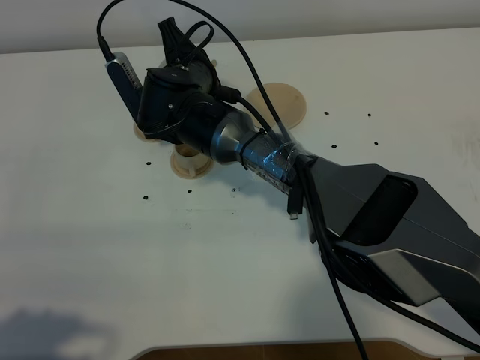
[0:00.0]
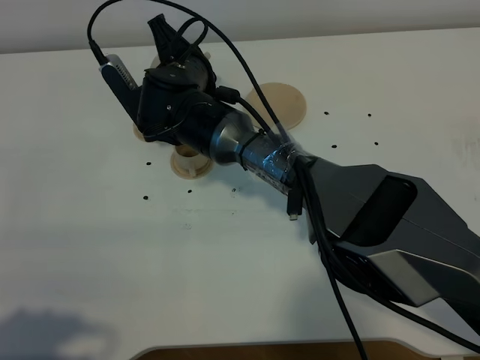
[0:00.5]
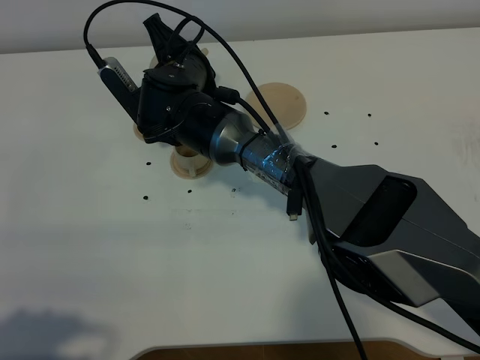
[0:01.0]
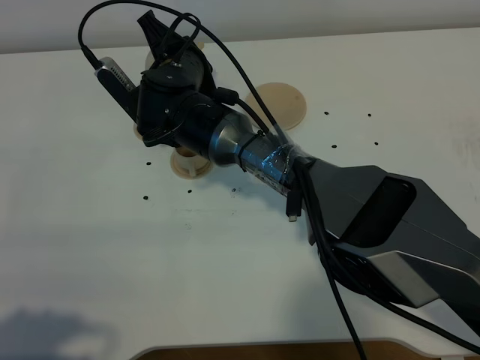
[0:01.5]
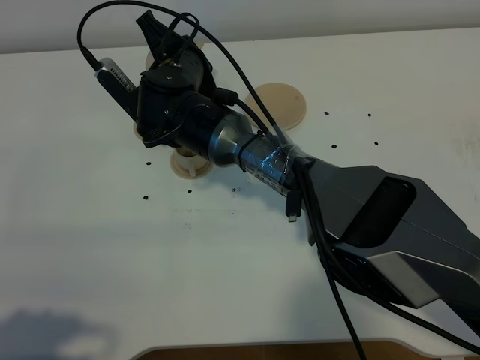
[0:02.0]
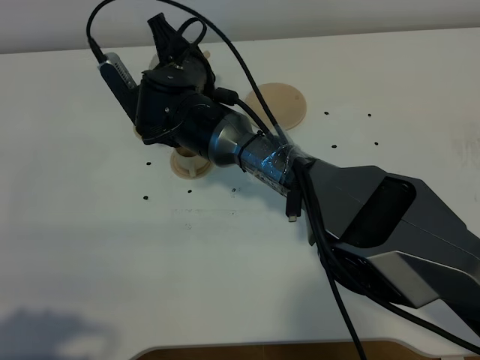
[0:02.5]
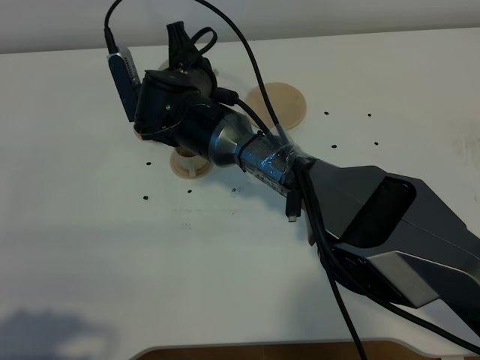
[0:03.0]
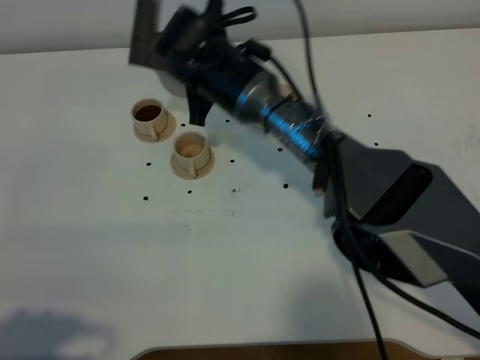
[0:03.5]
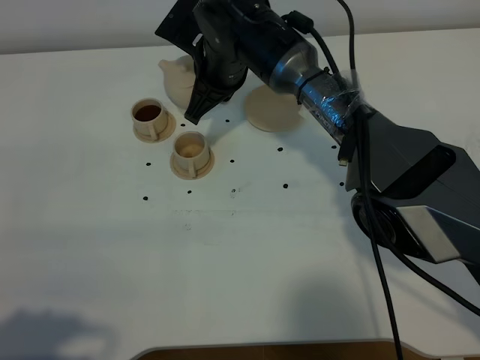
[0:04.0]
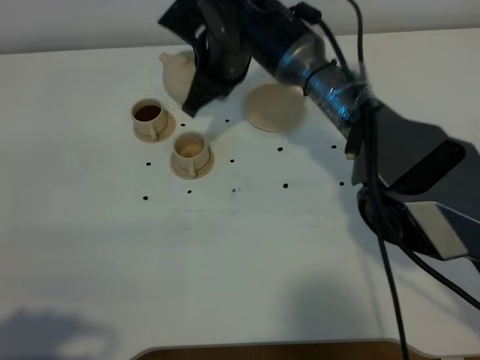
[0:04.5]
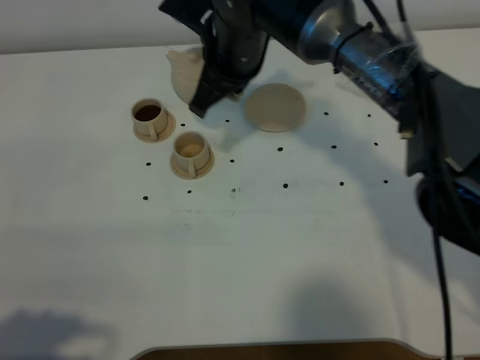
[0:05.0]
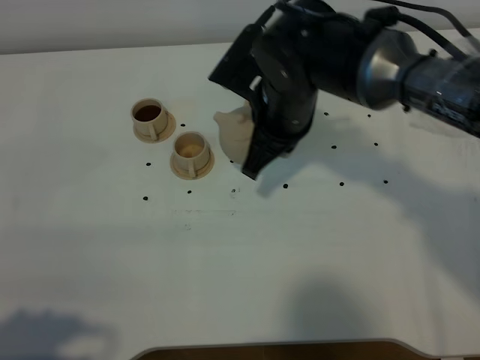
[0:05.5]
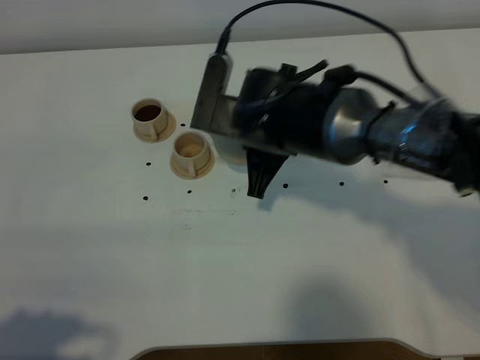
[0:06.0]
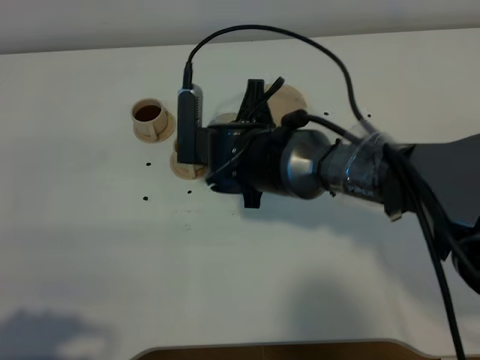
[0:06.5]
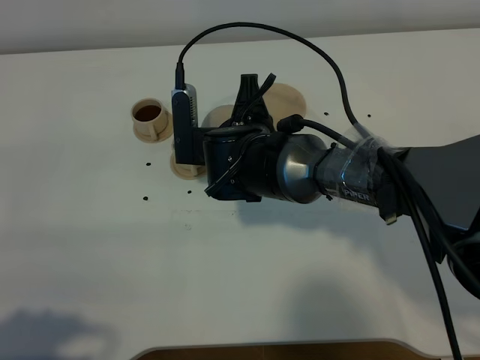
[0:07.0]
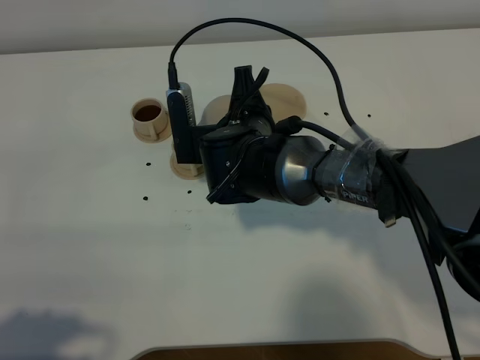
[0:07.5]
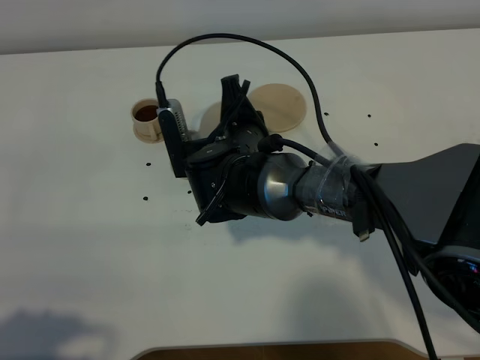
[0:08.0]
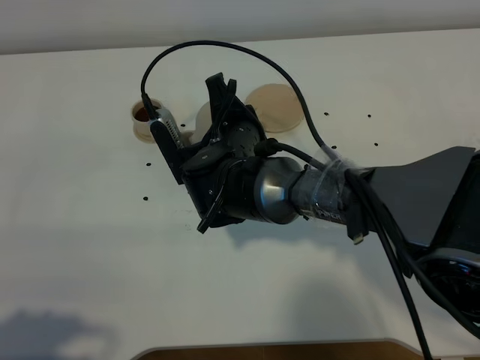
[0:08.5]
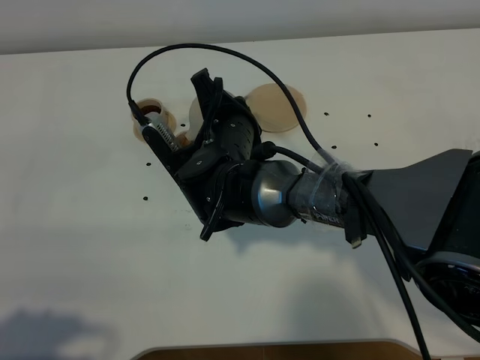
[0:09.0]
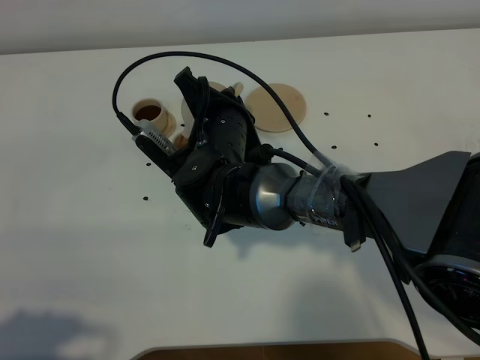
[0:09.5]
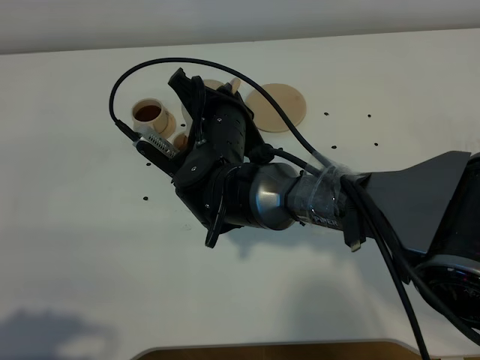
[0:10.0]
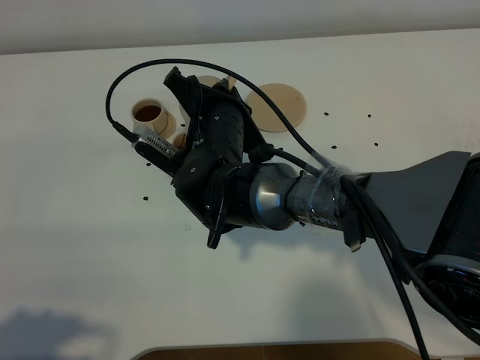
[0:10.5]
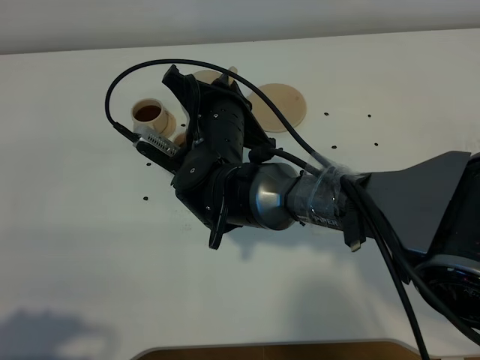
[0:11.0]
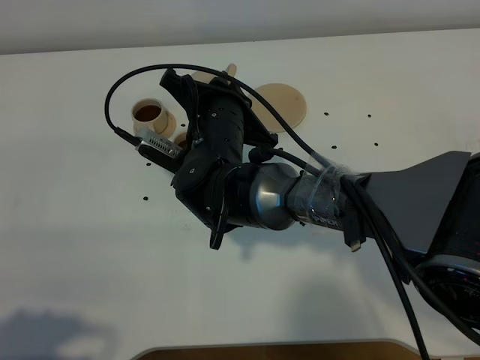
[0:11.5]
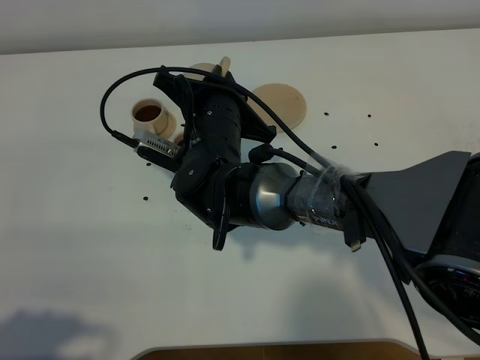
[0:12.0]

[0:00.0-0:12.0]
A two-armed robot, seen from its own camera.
Task of the whole recording: grasp the brown teapot and pour the tea into the two brown teacups one by one, put the brown teapot back in its original place.
0:00.0 to 0:02.0: There are only small adjustments of the grippers.
0:02.0 to 0:04.0: The right gripper moves to the right, approximately 5 cm.
0:04.0 to 0:06.0: The right gripper goes roughly 10 cm backward.
0:06.0 to 0:08.0: The right gripper ends up about 5 cm from where it was.
0:10.0 to 0:12.0: There are only small adjustments of the grippers.

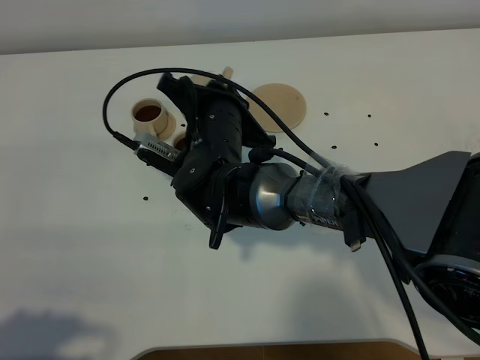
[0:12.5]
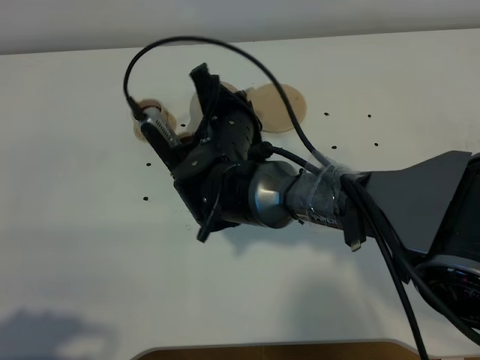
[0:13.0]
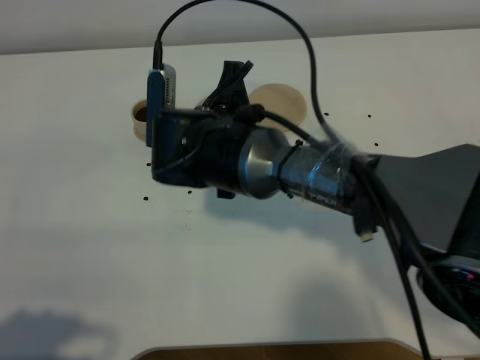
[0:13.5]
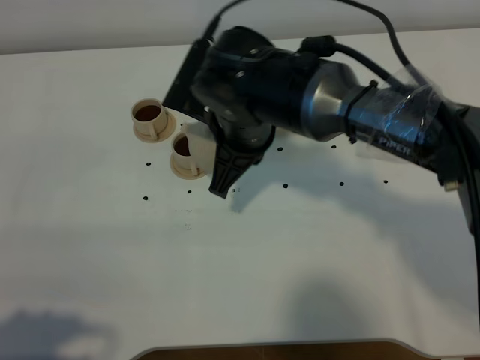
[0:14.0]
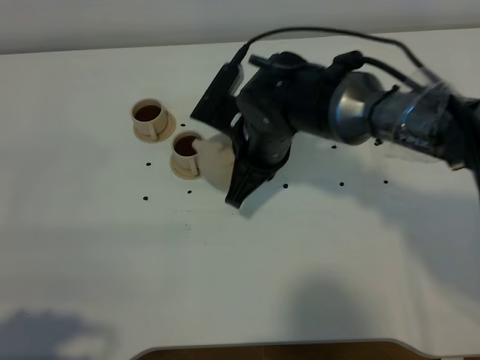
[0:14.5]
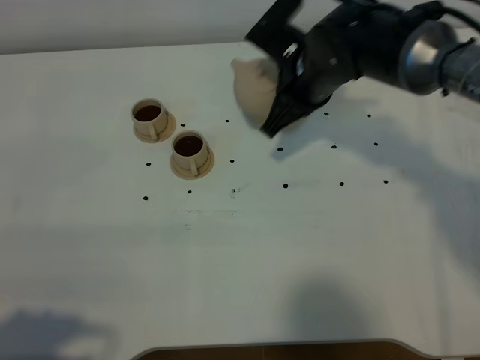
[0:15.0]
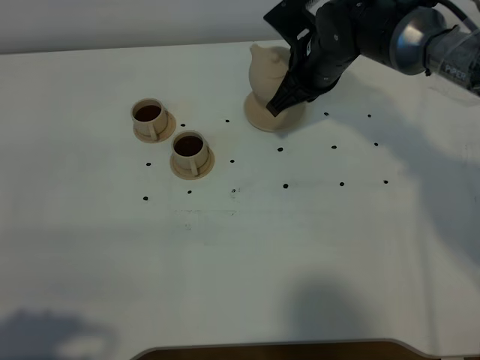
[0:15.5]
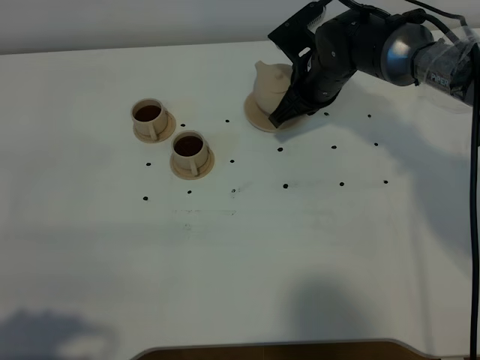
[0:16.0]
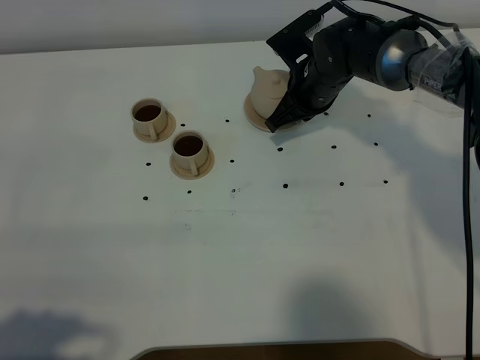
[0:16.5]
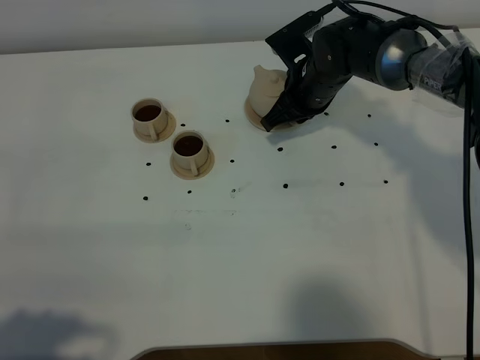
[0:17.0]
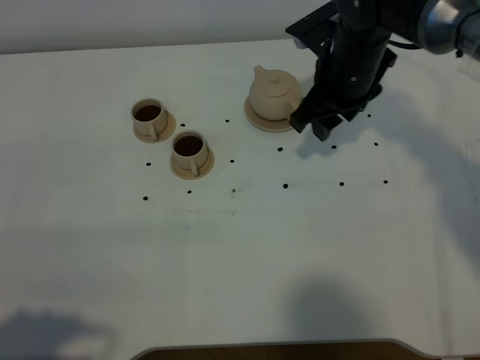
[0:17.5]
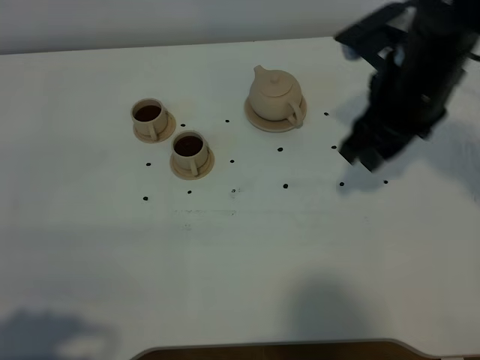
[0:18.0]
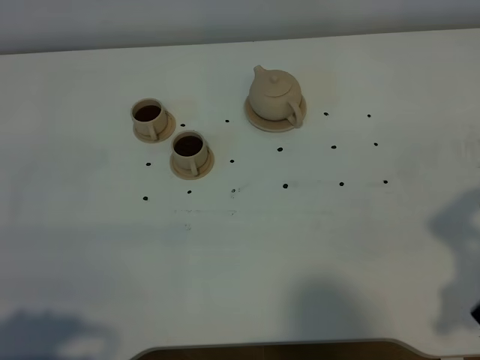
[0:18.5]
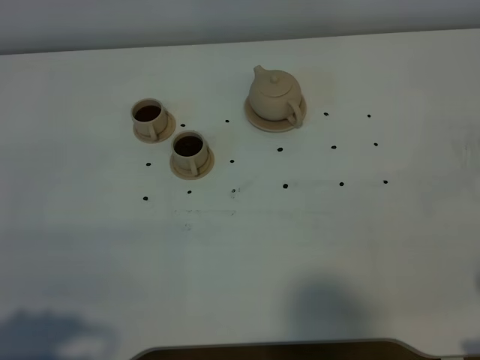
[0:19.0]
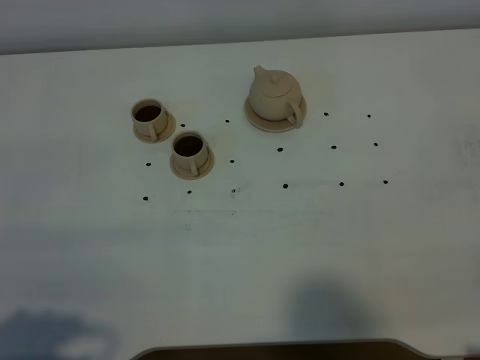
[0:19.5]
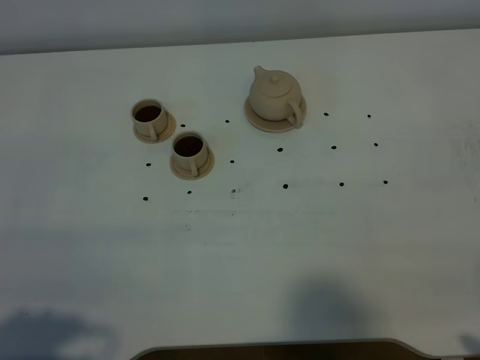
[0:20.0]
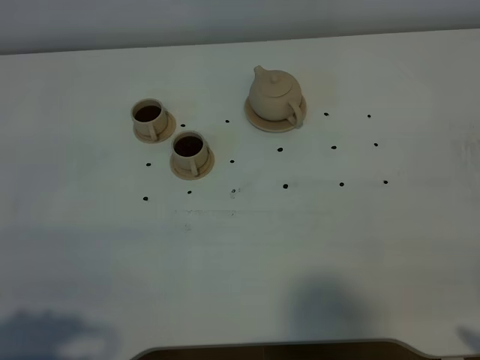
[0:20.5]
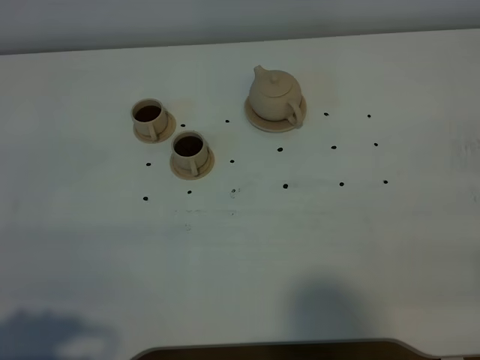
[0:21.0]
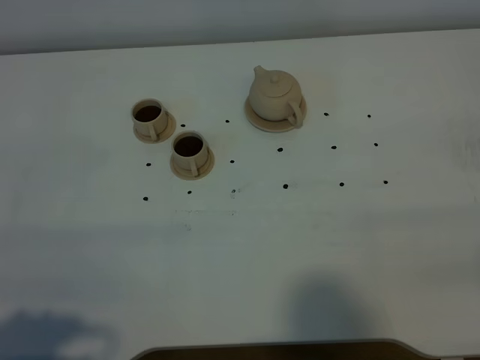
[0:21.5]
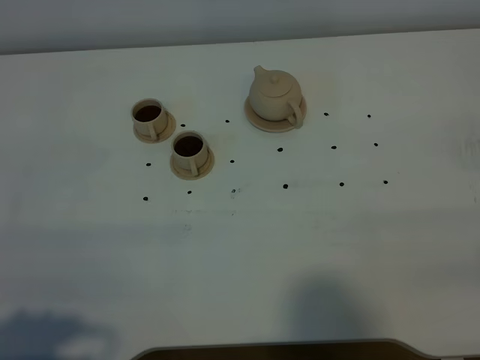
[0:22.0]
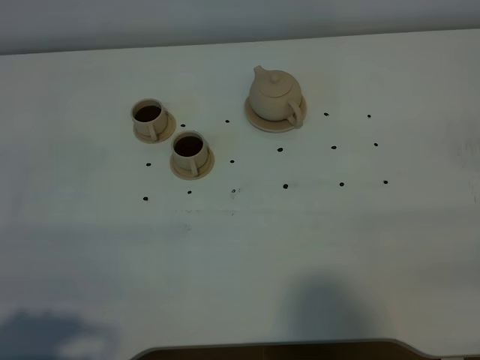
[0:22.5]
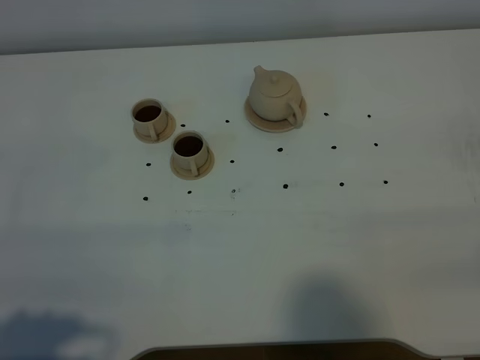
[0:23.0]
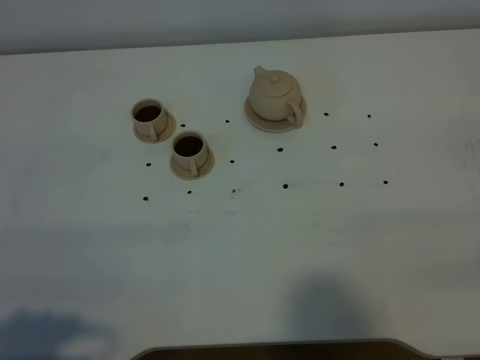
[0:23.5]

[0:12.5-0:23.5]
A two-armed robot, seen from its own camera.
Task of the whole recording: grasp the brown teapot and pour the tea into the two brown teacups one by one, put the brown teapot back in its original place.
0:12.5 to 0:14.5: The right gripper shifts roughly 5 cm to the right.
0:14.5 to 0:16.0: The right gripper goes approximately 15 cm forward and to the right.
0:16.0 to 0:18.0: The right gripper shifts approximately 20 cm backward, upward and to the right, and opens its fingers.
0:18.0 to 0:20.0: The right gripper moves backward and to the right, roughly 30 cm.
0:21.5 to 0:23.5: Both grippers stay put.

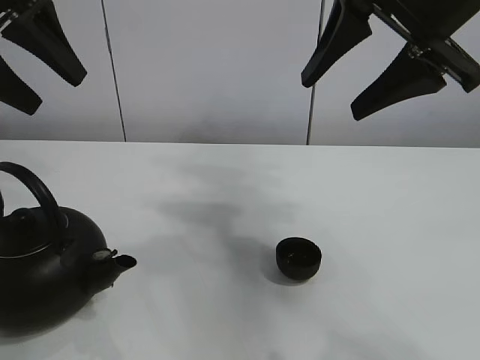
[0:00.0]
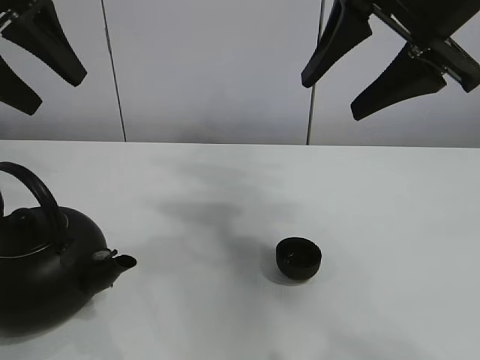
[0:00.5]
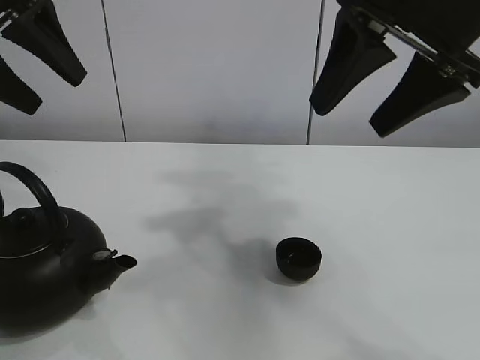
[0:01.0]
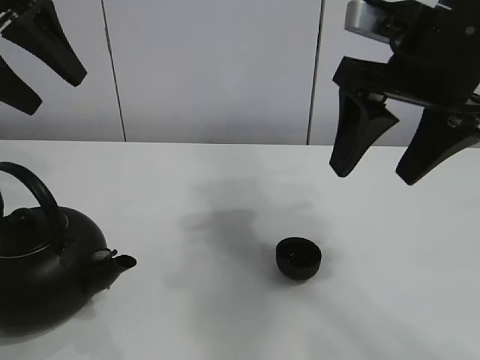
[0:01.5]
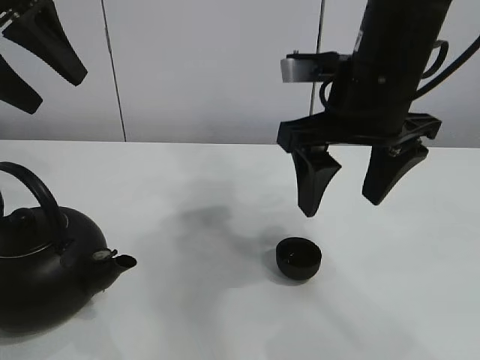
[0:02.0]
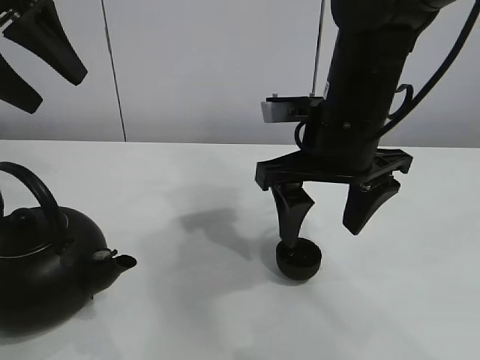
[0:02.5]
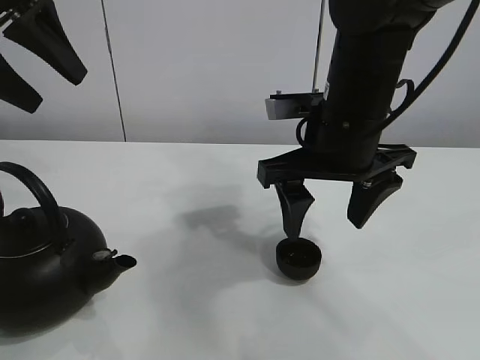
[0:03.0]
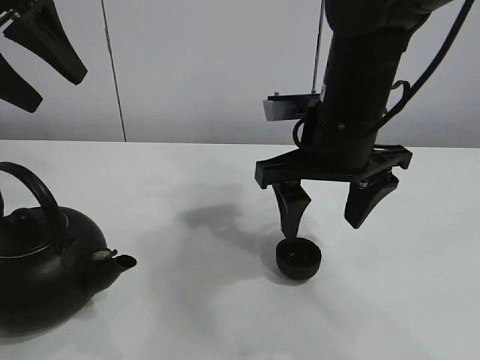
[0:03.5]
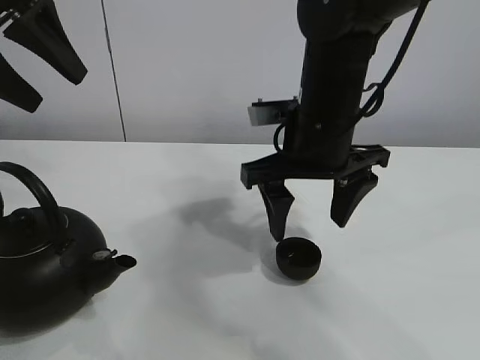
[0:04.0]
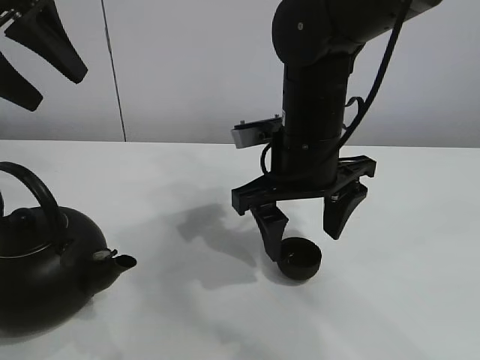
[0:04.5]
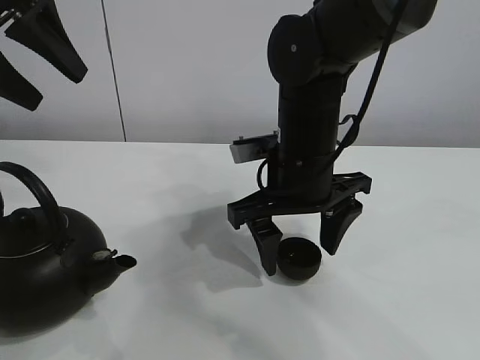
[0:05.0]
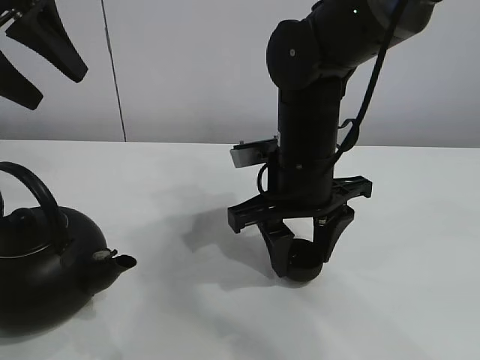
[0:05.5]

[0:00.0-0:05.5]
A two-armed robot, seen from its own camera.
Task of the whole recording: pour tea into the teacup.
Step, 0:00.0 to 0:05.5: Pick up the teacup with the right gripper.
0:02.0 to 0:03.5: The grippers move only a little.
0:03.5 to 0:05.5: The right gripper ends up roughly 5 cm from where it was, and closes.
